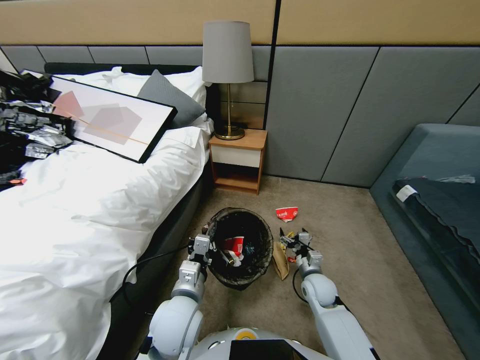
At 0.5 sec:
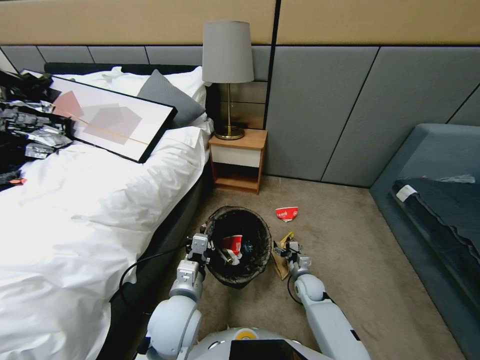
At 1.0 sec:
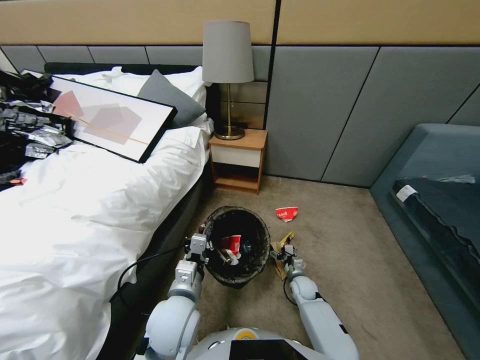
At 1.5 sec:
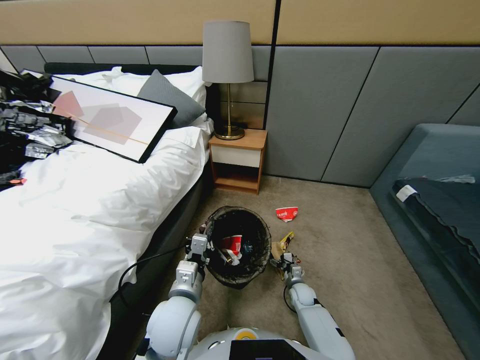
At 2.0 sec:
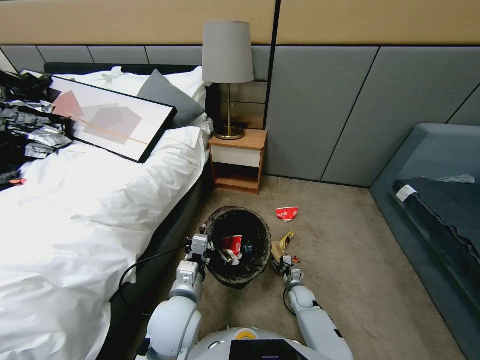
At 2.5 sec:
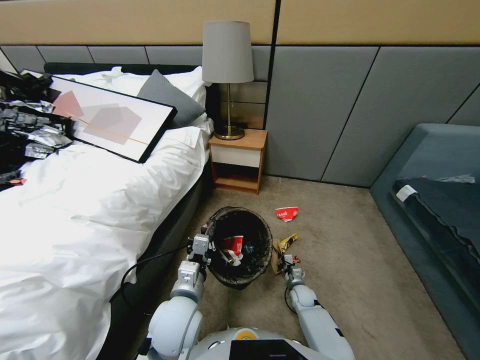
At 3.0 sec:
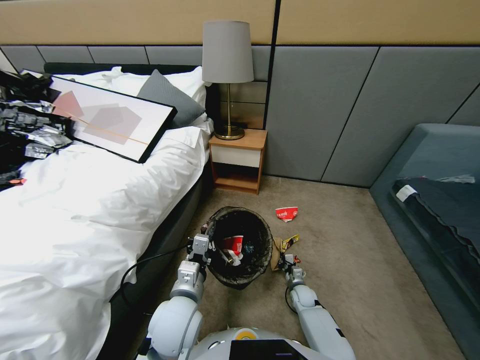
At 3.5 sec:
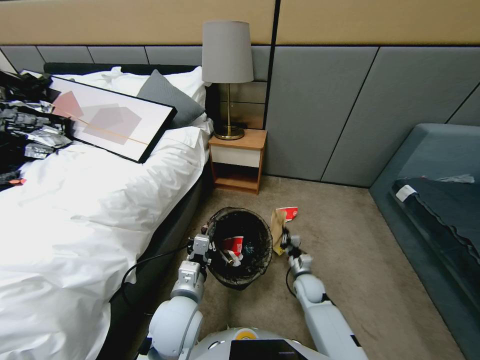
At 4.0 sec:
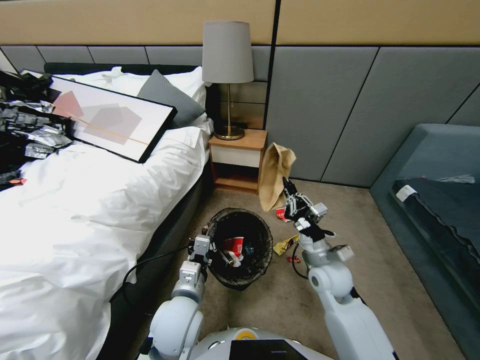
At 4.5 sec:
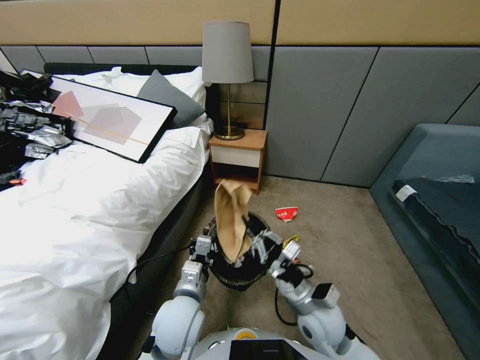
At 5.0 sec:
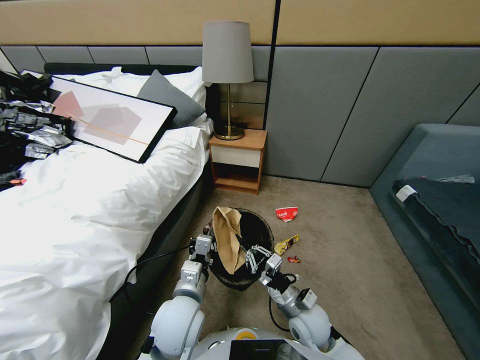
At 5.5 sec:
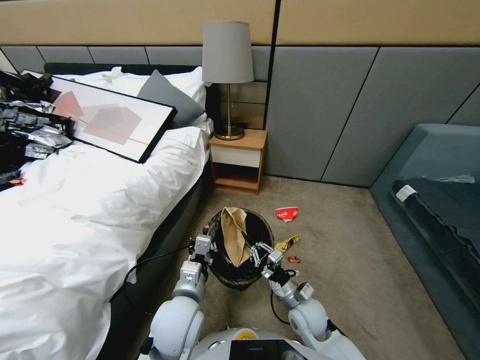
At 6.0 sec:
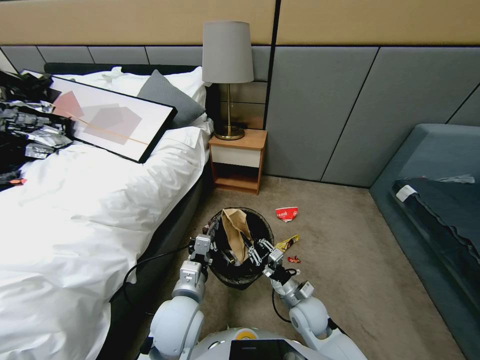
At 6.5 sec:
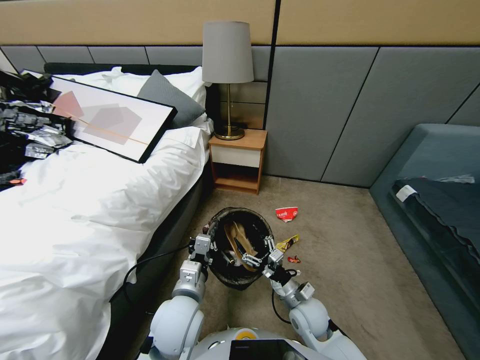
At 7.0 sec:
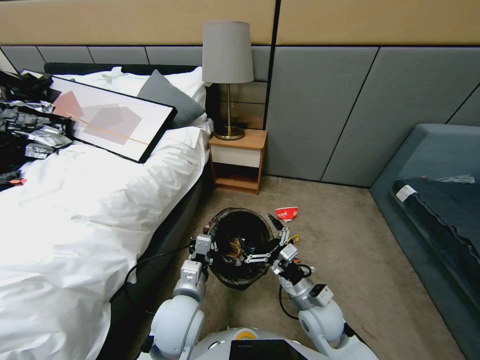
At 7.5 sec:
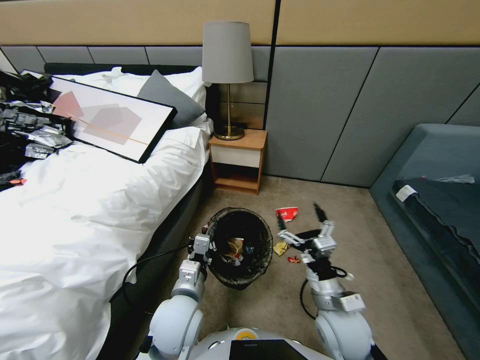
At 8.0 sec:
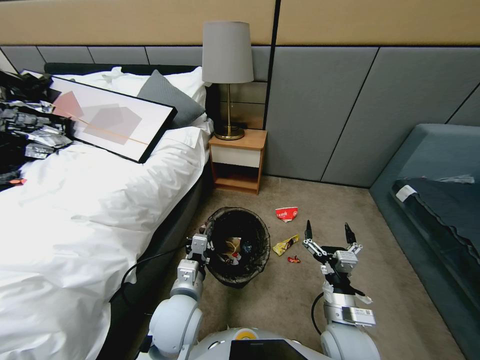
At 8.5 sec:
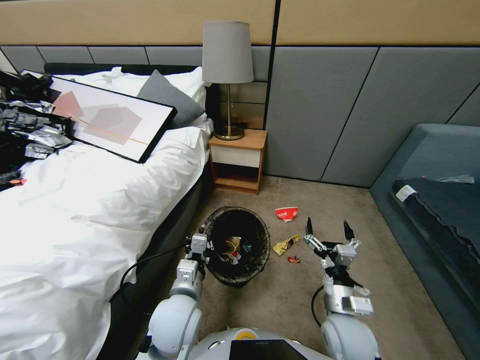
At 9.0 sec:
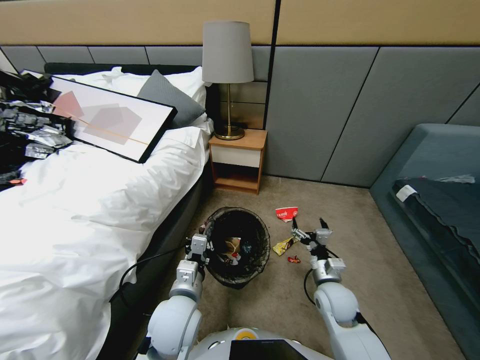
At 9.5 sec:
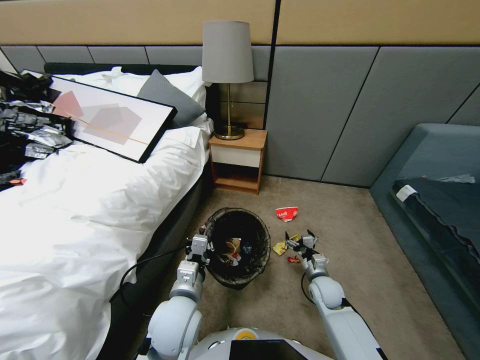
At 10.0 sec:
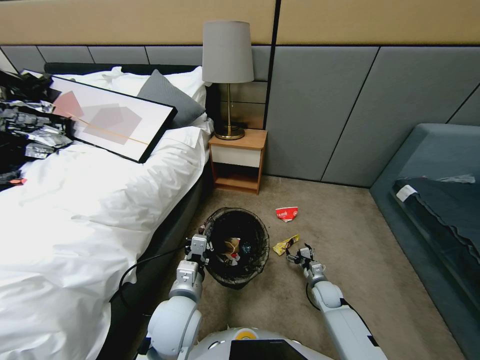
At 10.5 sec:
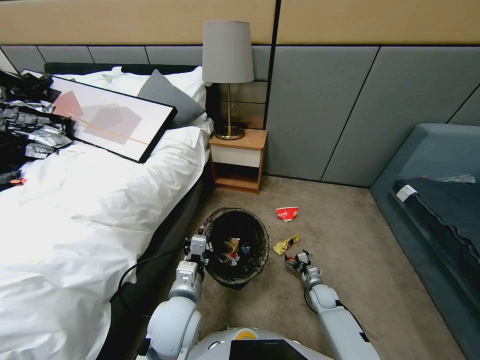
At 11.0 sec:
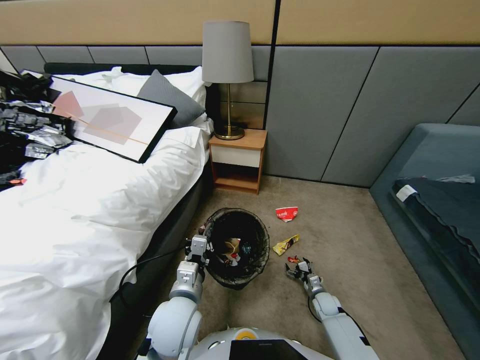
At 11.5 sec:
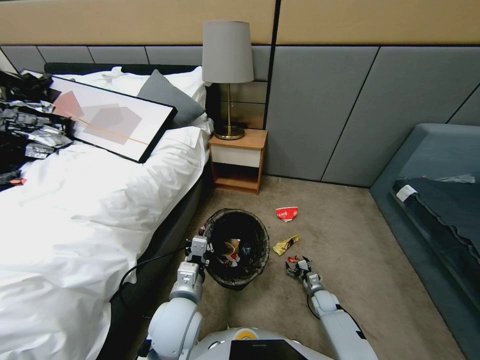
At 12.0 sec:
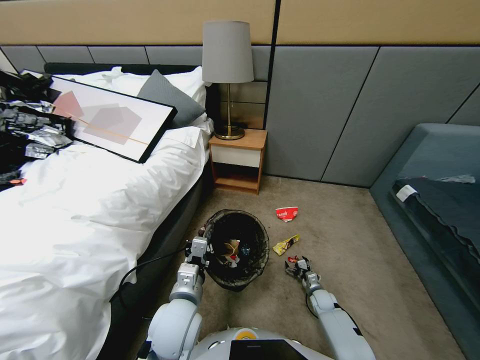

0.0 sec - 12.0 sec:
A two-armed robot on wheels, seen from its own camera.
Task of the whole recording: Pick up the trash bin, then pick up the garbage from the floor and place it into the trash bin.
0.0 sec - 2.0 sec: The right gripper heads downward, covering about 15 cm, and closes its fingers.
2.0 sec - 4.0 sec: The right gripper shifts roughly 30 cm upward, and closes its fingers.
4.0 sec - 6.0 sec: The right gripper heads downward, covering about 10 cm, and opens its fingers.
6.0 sec - 8.0 sec: The right gripper travels upward and backward by about 10 cm, and opens its fingers.
8.0 sec - 10.0 sec: The right gripper travels downward, forward and to the right by some 30 cm.
10.0 sec - 12.0 sec: The right gripper goes roughly 10 cm downward.

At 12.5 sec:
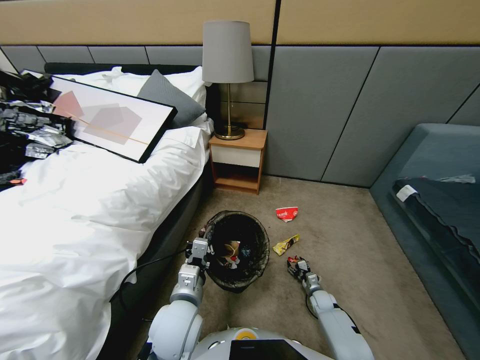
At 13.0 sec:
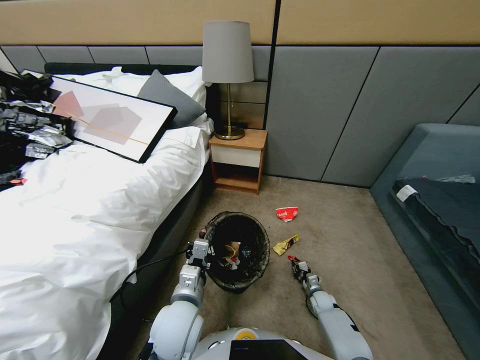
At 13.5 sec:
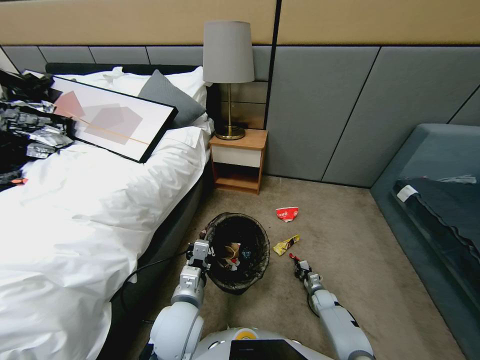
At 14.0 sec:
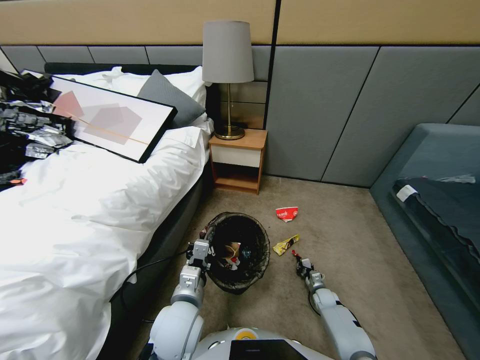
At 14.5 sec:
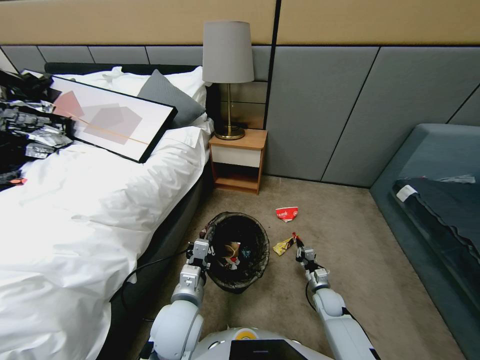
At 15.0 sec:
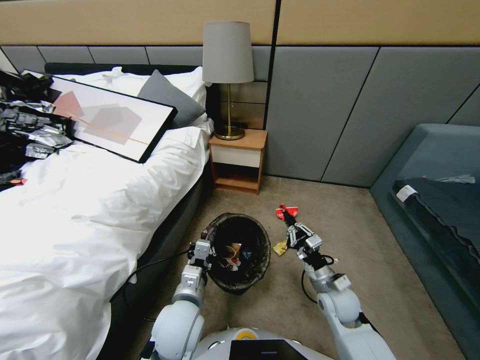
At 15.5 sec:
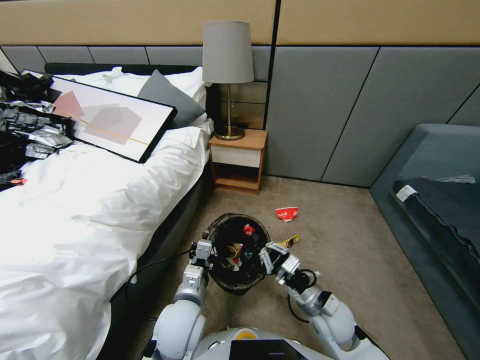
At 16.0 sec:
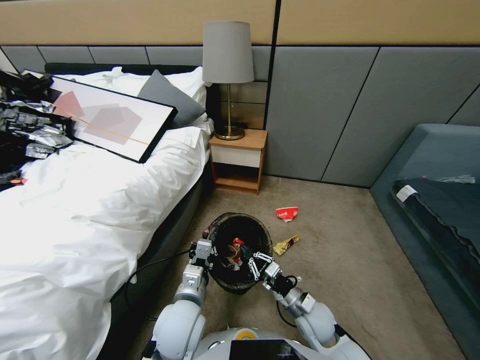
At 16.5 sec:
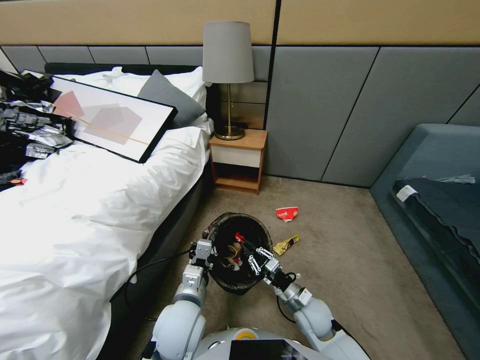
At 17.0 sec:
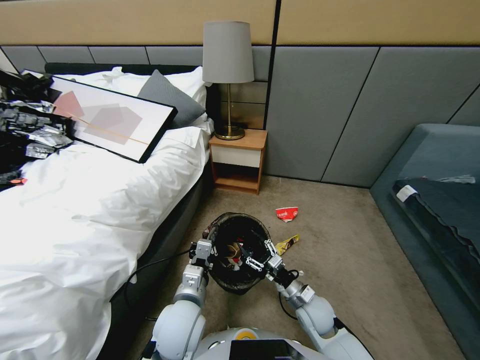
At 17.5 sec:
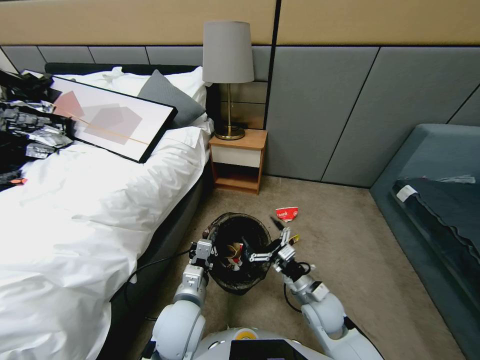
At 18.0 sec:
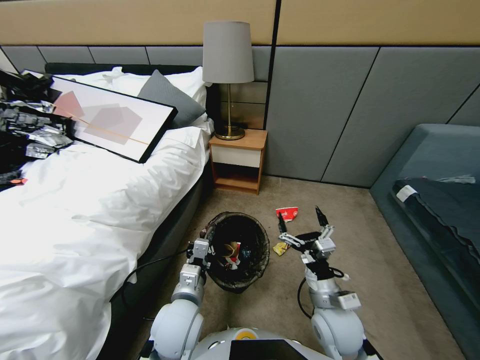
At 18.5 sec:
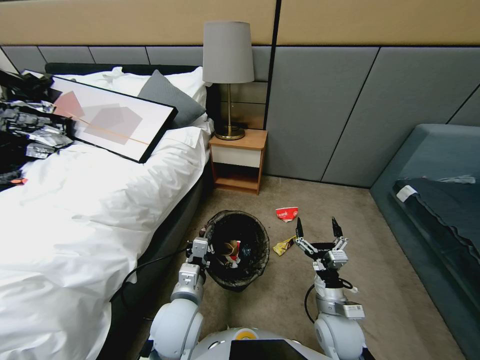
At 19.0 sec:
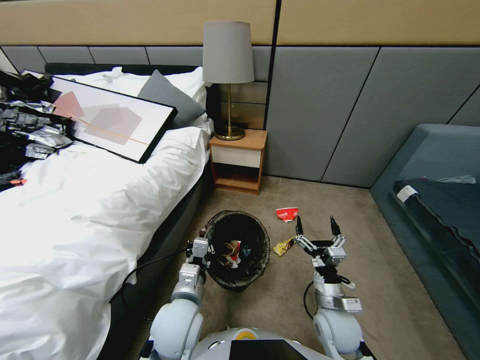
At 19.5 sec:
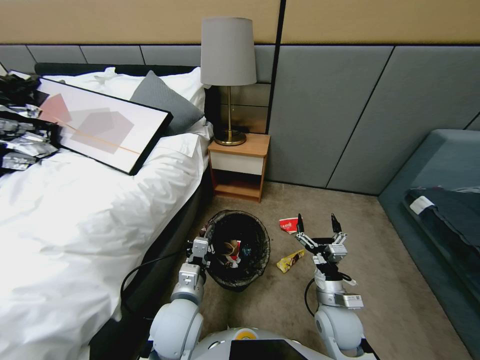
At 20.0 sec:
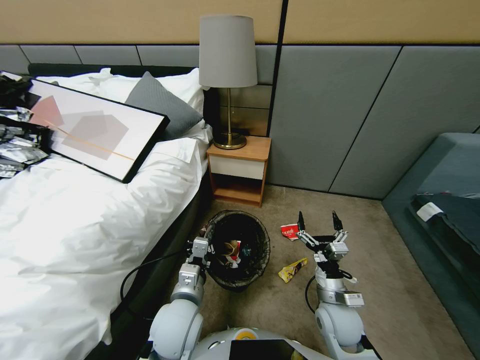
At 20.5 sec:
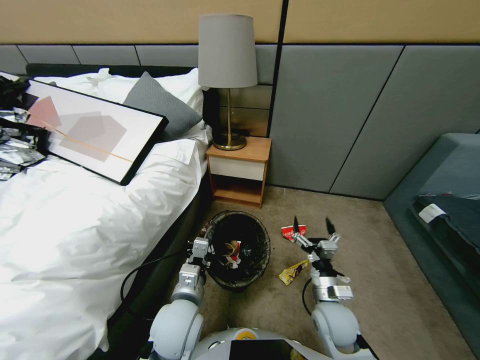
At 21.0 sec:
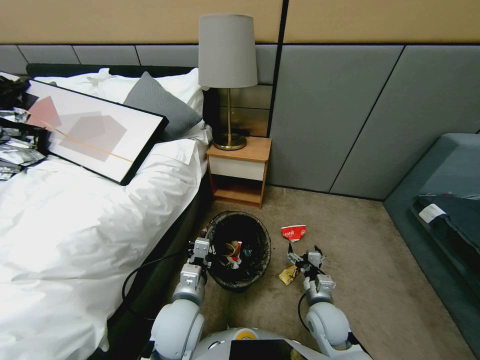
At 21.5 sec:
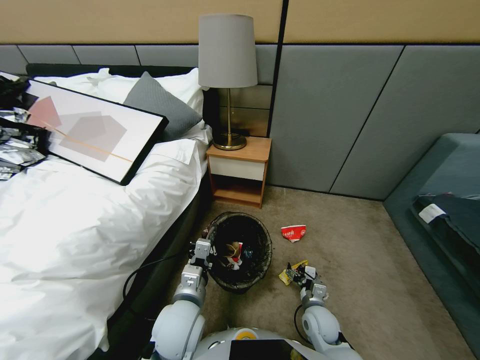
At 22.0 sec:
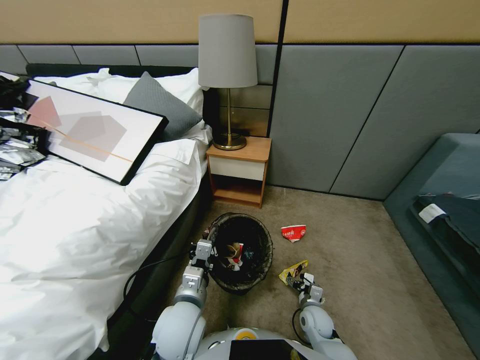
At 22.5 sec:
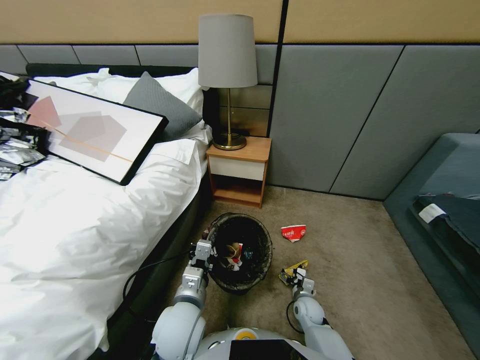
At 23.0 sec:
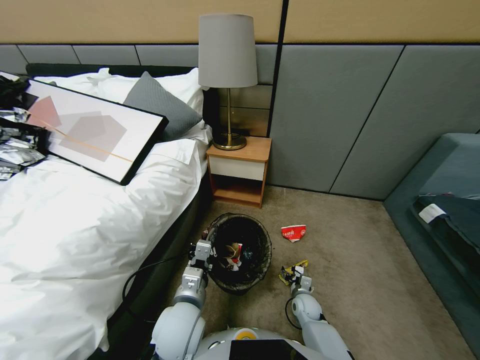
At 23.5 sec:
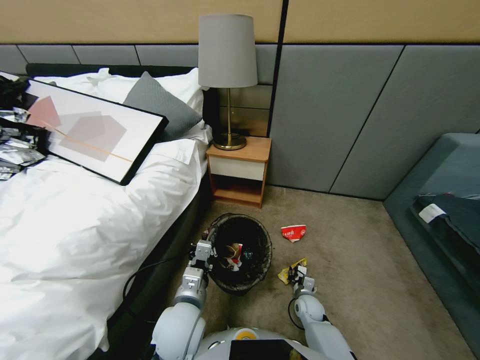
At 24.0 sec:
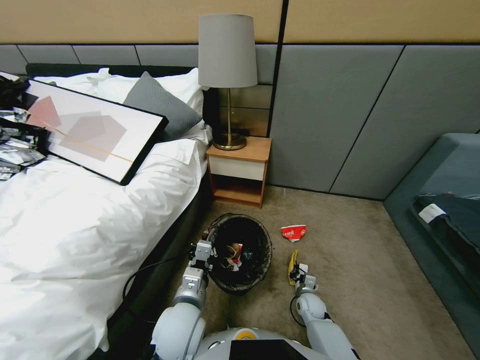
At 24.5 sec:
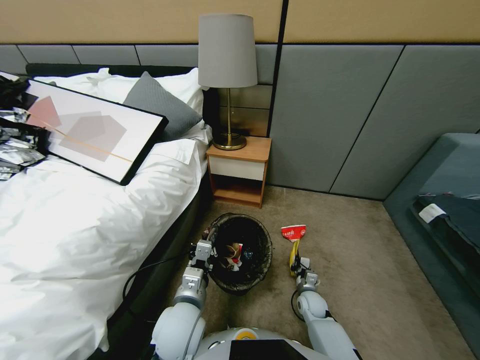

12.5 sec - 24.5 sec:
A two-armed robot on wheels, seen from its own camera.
Task of the whole recording: Pick up the trash bin, then pick up the garbage from the floor and place it into the trash bin.
12.5 sec - 14.5 sec: The right gripper goes approximately 15 cm upward, and closes.
14.5 sec - 16.5 sec: The right gripper is displaced to the left and upward by approximately 10 cm.
16.5 sec - 18.5 sec: The right gripper travels upward by roughly 5 cm, and opens up.
20.5 sec - 22.5 sec: The right gripper moves downward, approximately 20 cm.
22.5 sec - 24.5 sec: The right gripper closes.

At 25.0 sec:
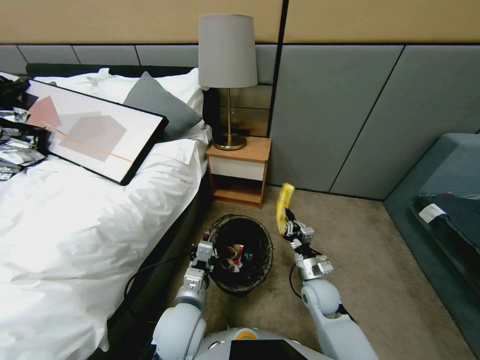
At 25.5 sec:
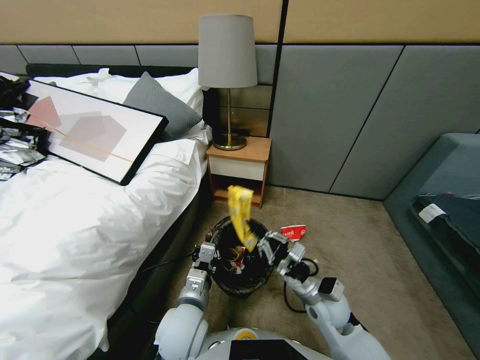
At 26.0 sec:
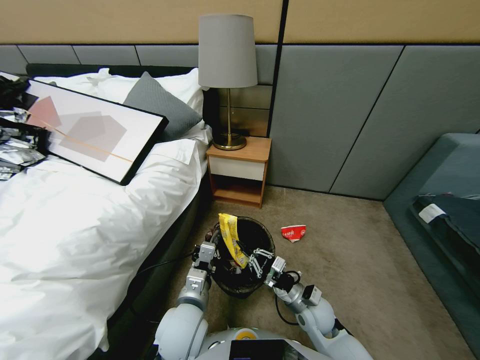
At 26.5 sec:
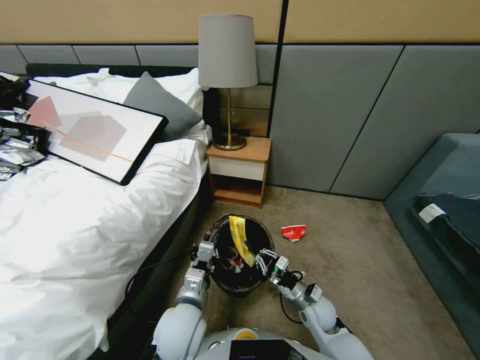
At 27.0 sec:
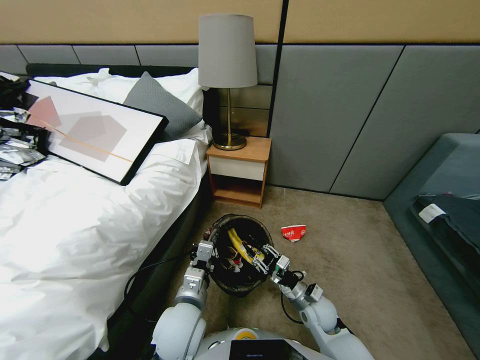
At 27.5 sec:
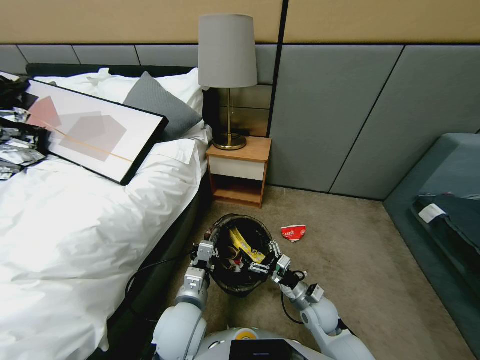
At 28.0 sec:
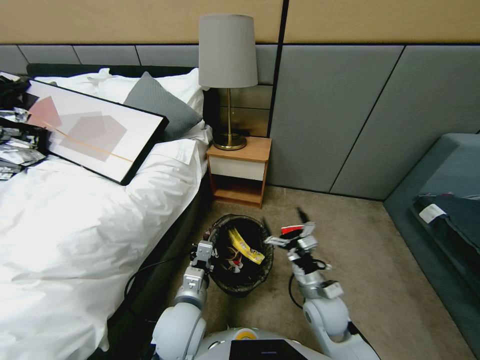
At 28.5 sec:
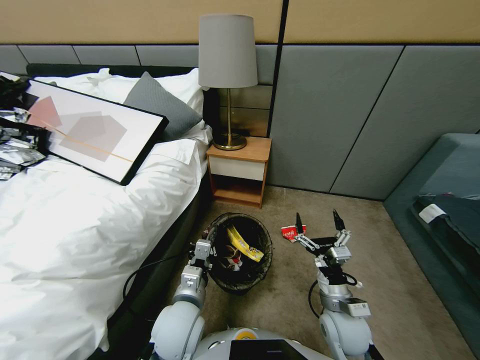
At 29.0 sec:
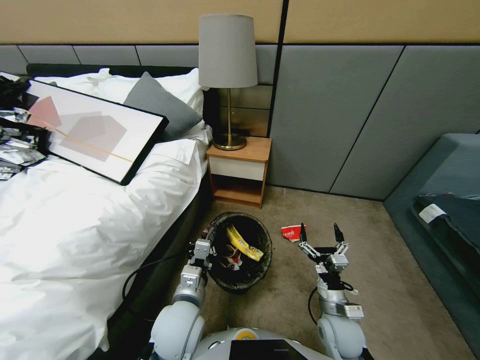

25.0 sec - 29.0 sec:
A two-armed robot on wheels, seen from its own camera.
Task of the whole recording: Pick up the trash bin, then pick up the garbage from the floor and place it into the trash bin.
25.0 sec - 27.0 sec: The right gripper is displaced downward by about 10 cm, and opens up.
27.0 sec - 29.0 sec: The right gripper moves approximately 5 cm, and opens.
